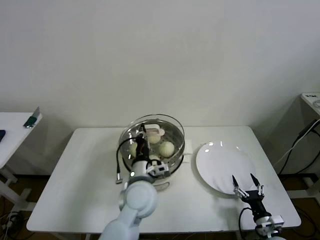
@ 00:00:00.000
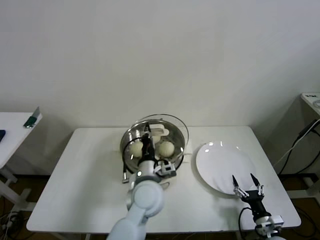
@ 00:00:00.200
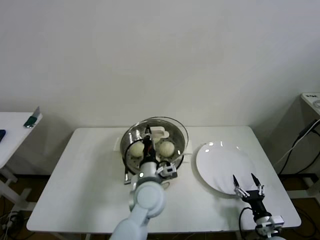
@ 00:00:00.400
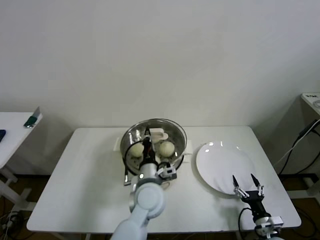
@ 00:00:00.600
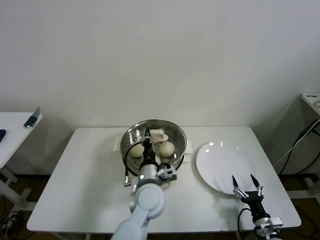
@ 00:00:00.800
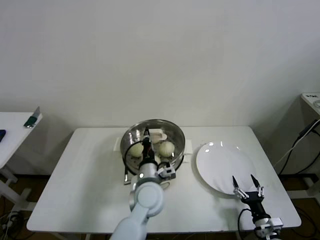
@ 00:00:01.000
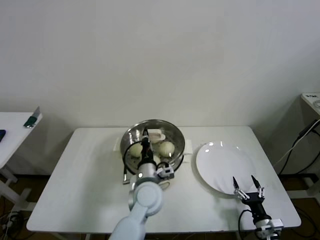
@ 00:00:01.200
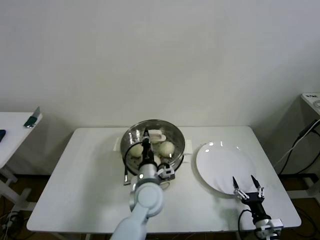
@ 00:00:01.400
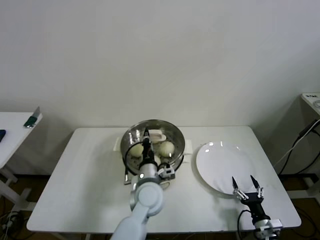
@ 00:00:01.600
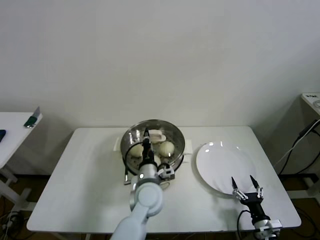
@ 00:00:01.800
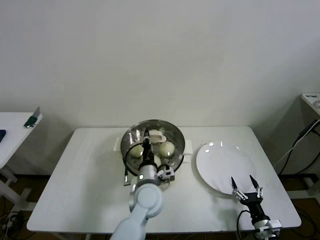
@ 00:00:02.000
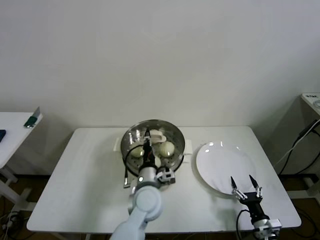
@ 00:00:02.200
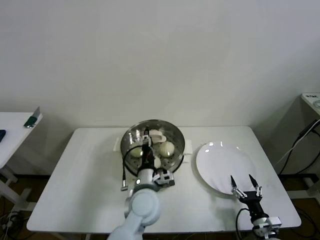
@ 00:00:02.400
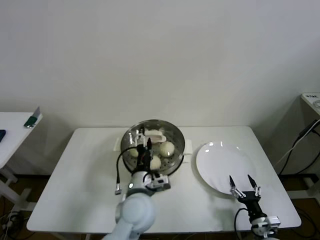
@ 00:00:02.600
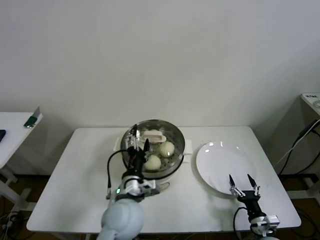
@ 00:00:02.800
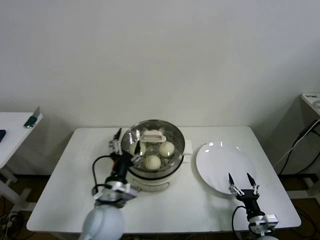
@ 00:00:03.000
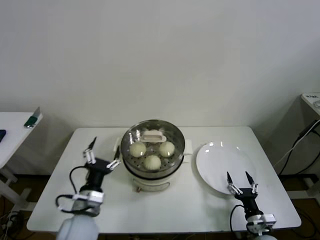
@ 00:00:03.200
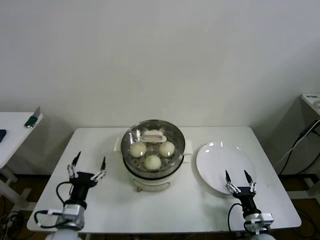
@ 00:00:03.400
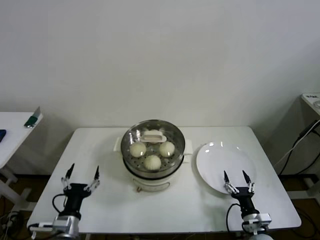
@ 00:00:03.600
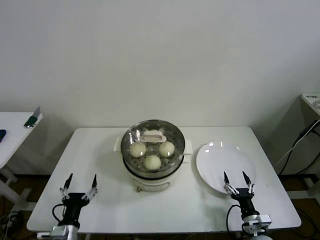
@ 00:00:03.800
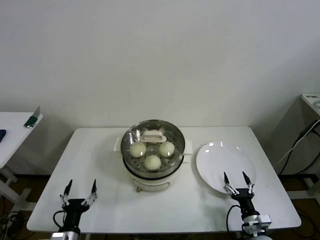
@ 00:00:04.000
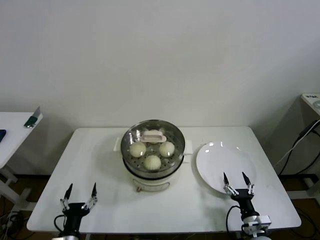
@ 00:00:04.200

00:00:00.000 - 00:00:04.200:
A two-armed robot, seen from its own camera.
Step, 00:00:00.000 - 00:00:02.000: Place the pot lid on the steamer with left gripper.
00:00:00.000 - 00:00:01.400: The left gripper ends up approximately 5 cm from where it was.
00:00:01.400 - 00:00:02.800: The left gripper is displaced backward by about 5 cm, and opens its fingers.
00:00:02.800 - 00:00:04.200: The left gripper is displaced to the left, downward and backward by about 30 cm.
